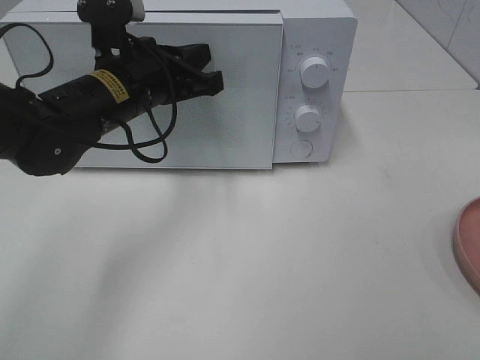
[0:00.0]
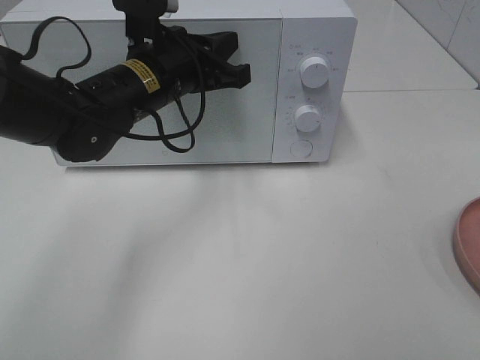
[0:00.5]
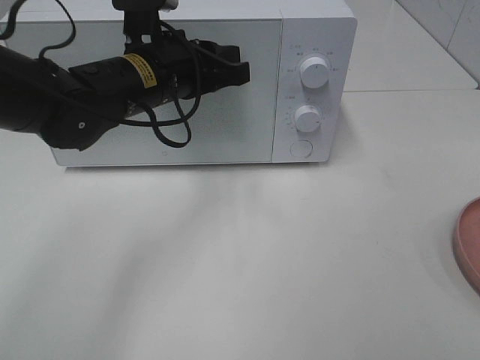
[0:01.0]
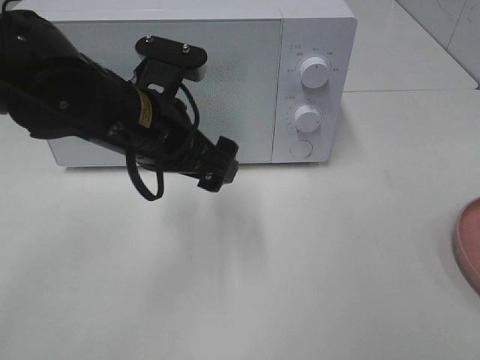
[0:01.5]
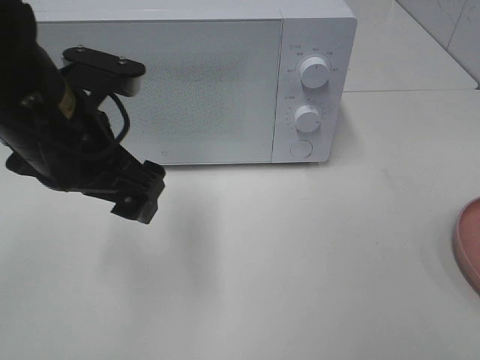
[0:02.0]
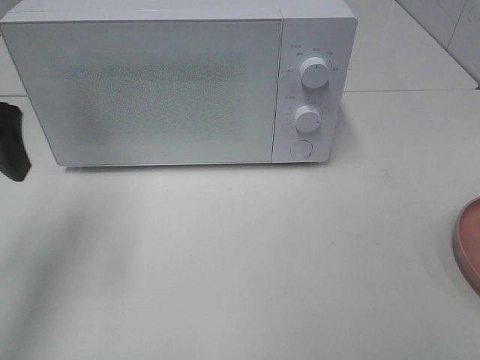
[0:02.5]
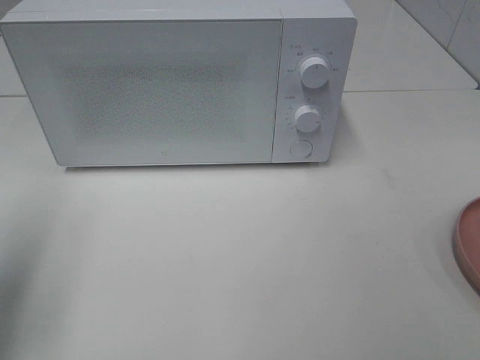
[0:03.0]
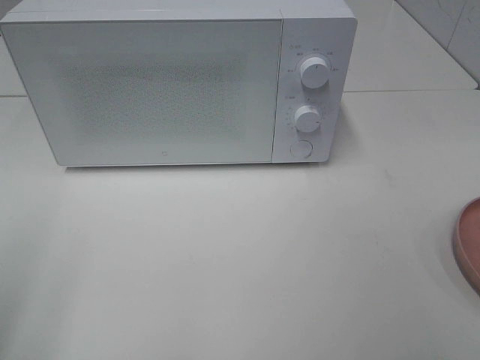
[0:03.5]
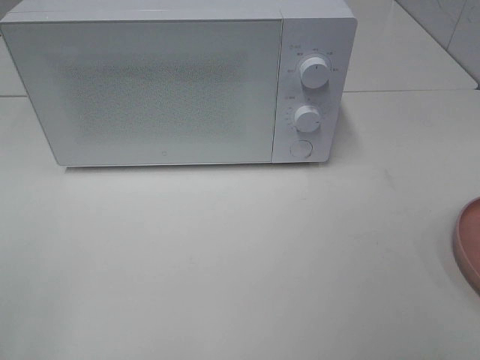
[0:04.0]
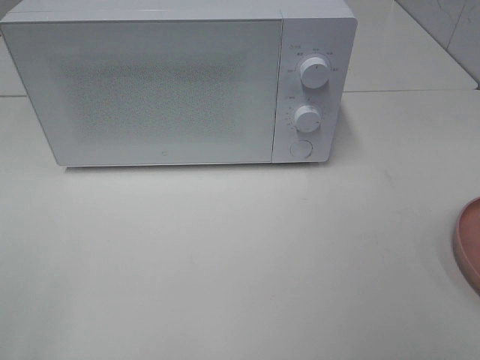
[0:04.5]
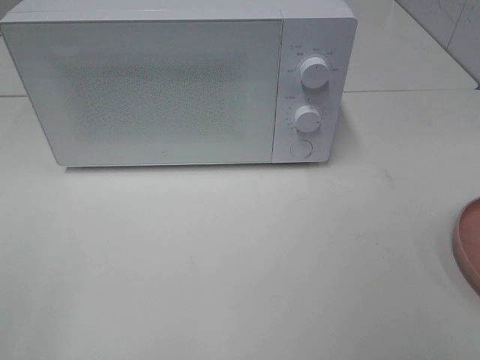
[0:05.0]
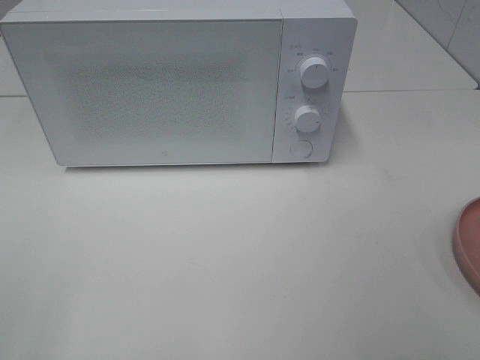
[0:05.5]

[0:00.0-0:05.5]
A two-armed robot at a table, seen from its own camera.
Task of the whole recording: Heat the burger.
0:00.0 to 0:02.0: The left gripper goes about 10 cm backward, and opens.
0:02.0 to 0:03.5: The left gripper shifts roughly 25 cm to the left and backward.

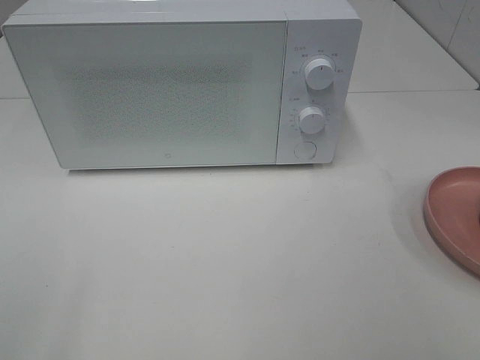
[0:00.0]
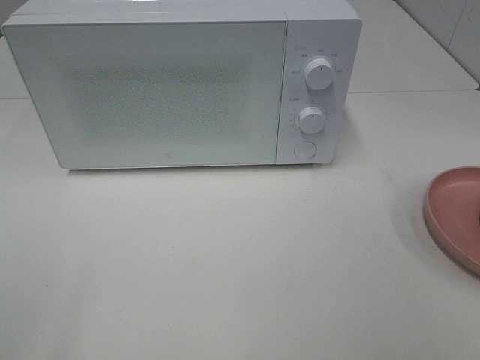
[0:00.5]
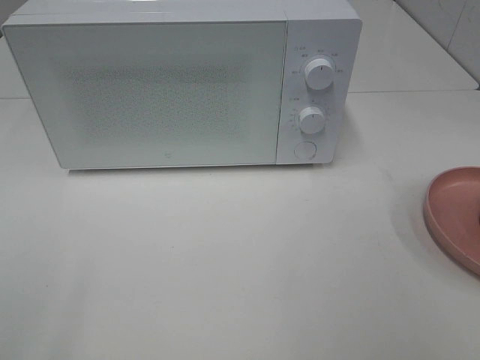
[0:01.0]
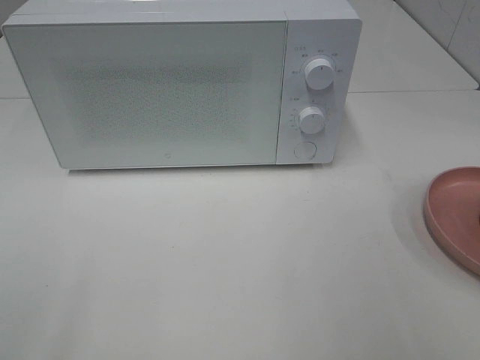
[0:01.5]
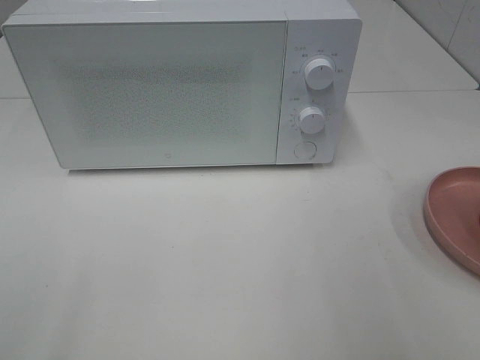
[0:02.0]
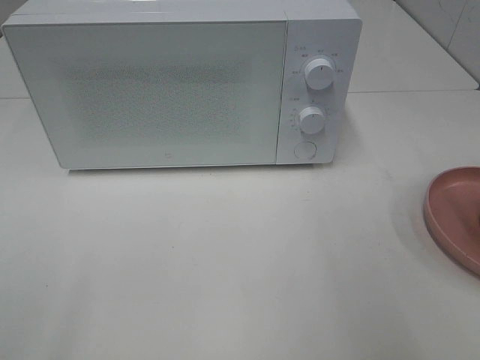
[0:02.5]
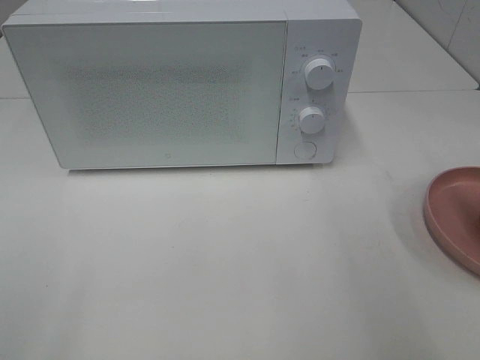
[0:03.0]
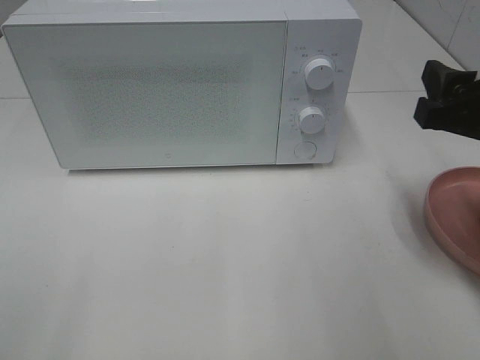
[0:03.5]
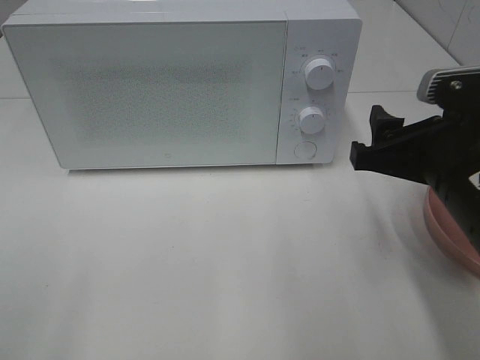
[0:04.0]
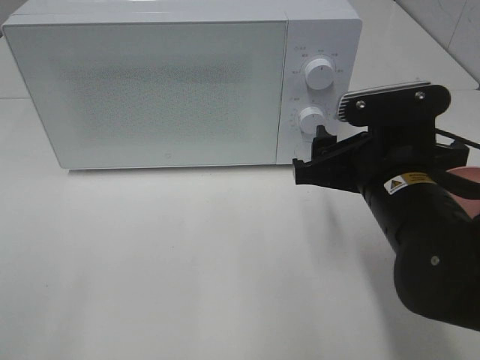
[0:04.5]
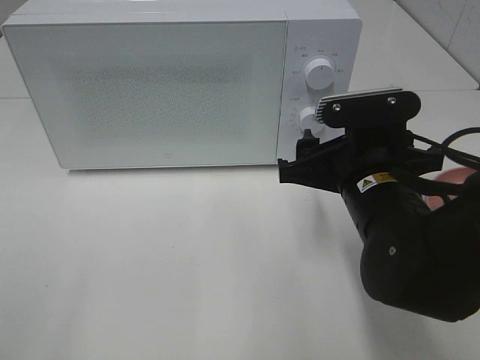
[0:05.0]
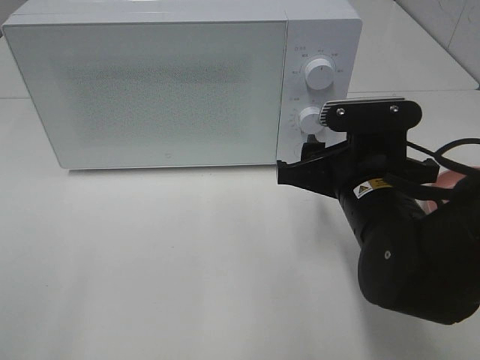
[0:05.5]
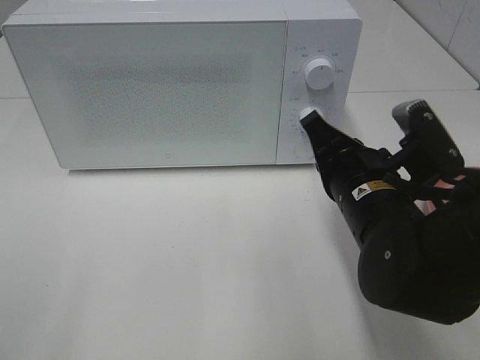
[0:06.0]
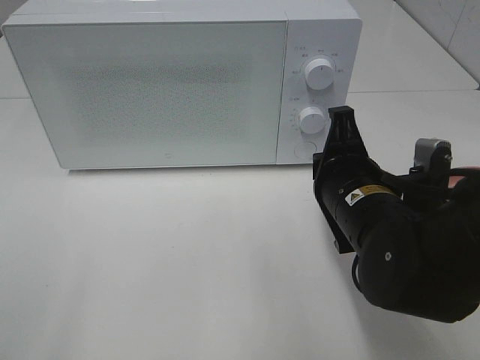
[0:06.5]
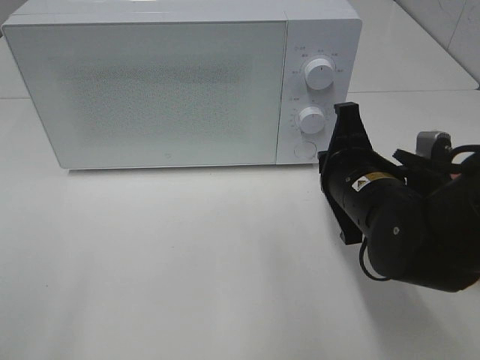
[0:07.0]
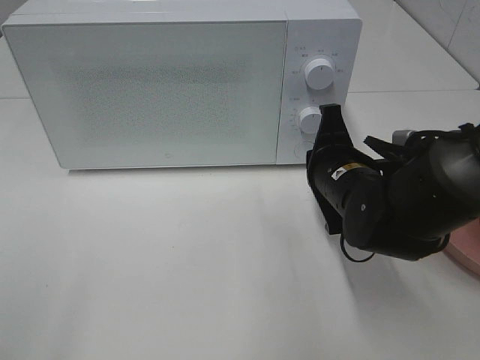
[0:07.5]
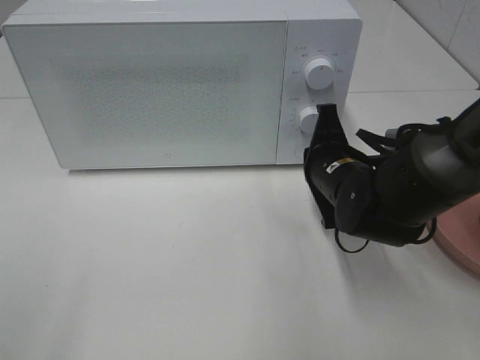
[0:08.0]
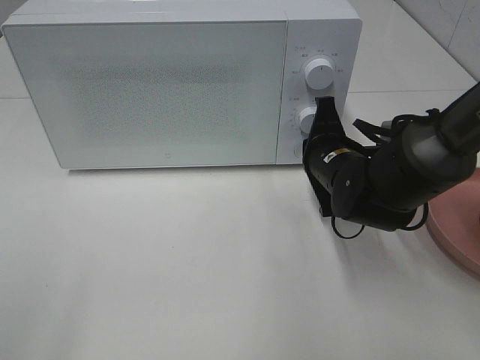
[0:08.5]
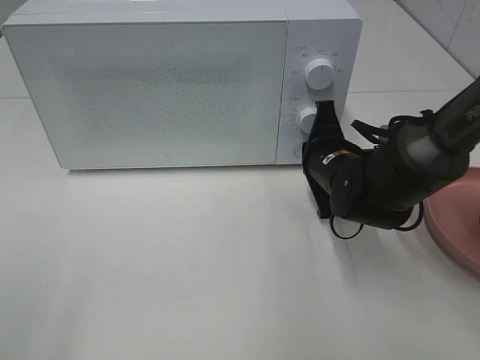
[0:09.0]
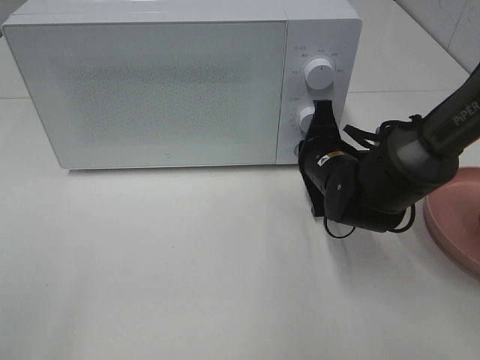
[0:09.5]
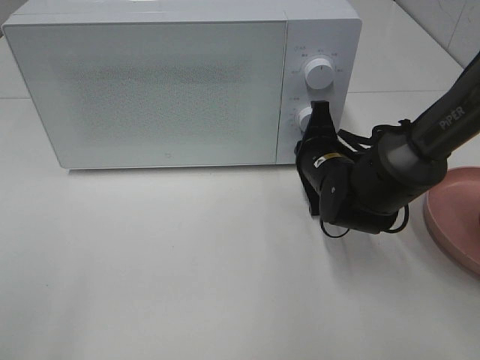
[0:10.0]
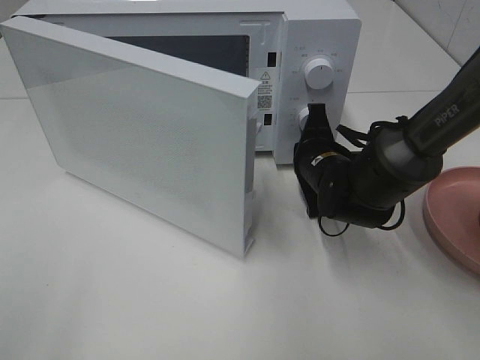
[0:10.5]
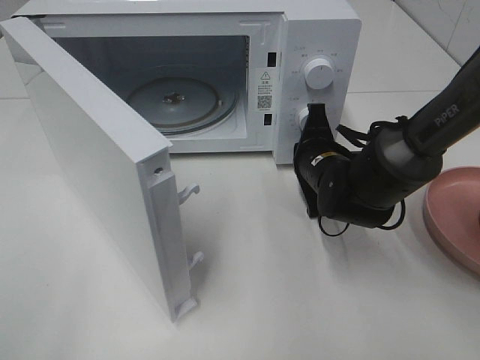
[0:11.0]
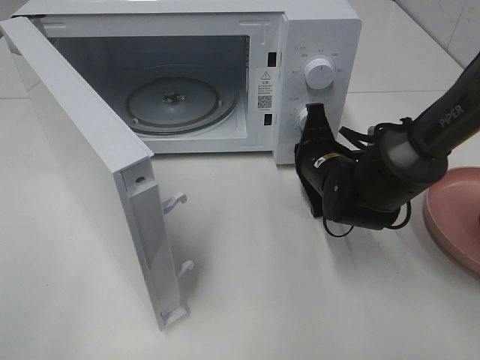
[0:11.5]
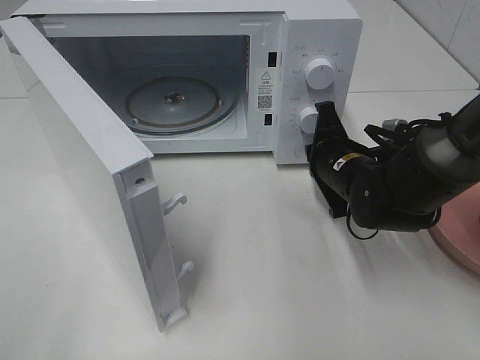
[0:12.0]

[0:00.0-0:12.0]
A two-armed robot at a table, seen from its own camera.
Task of the whole recording: Heat the burger.
0:02.0 to 0:04.0: The right gripper moves downward, to the left and forward, approximately 15 cm.
0:04.0 to 0:06.0: The right gripper goes some 10 cm to the left and downward, and closes.
0:06.0 to 0:08.0: The right gripper shifts about 10 cm forward.
0:08.0 to 0:10.0: The grippers stay close to where they were, moving slightly.

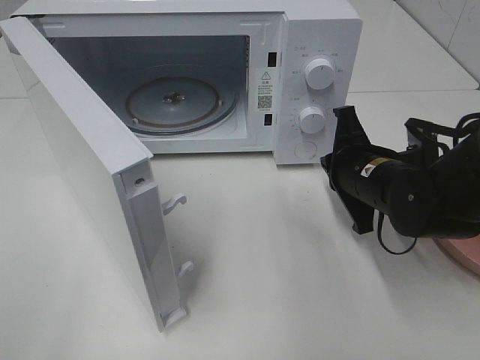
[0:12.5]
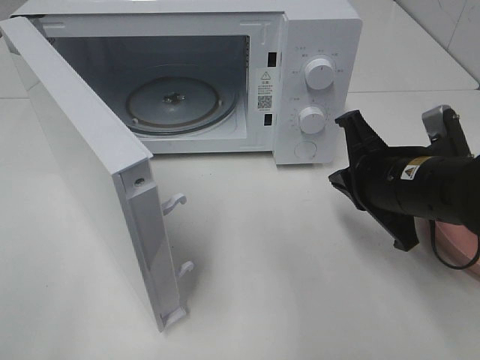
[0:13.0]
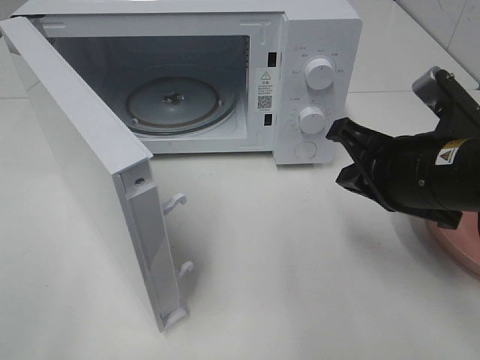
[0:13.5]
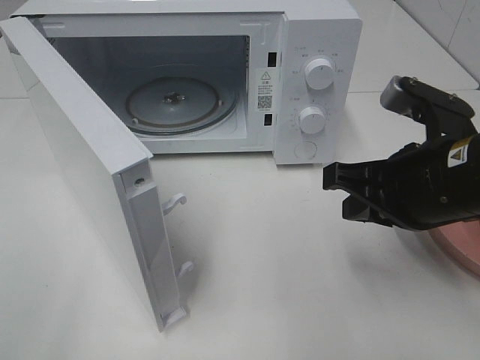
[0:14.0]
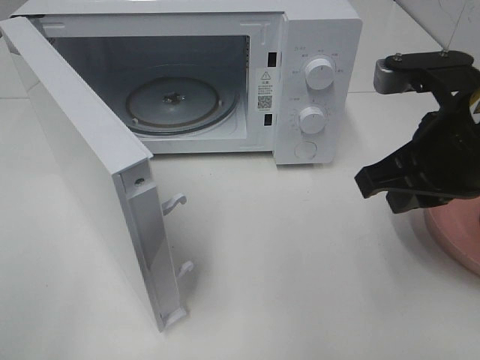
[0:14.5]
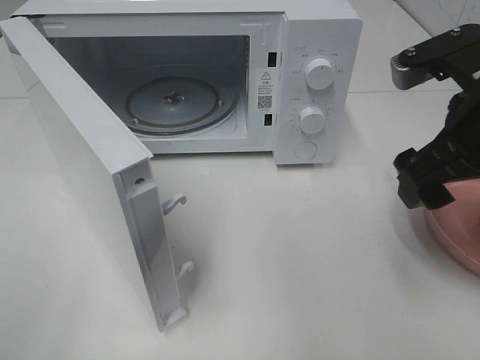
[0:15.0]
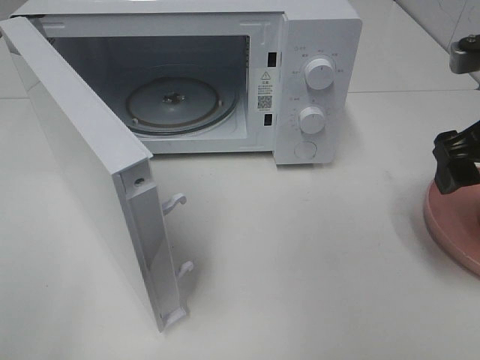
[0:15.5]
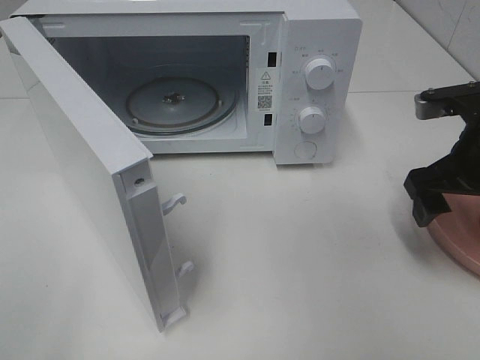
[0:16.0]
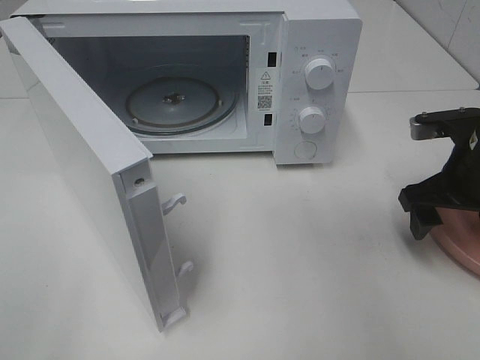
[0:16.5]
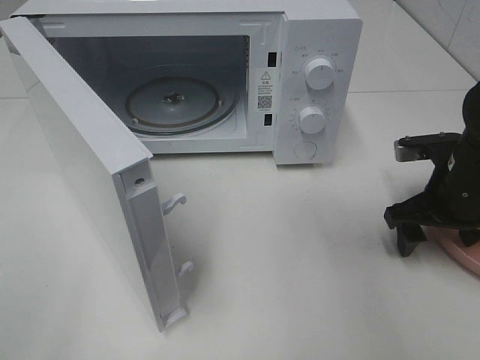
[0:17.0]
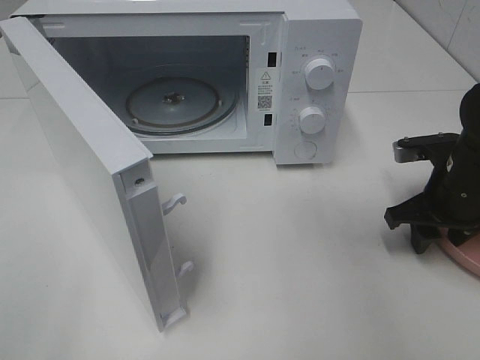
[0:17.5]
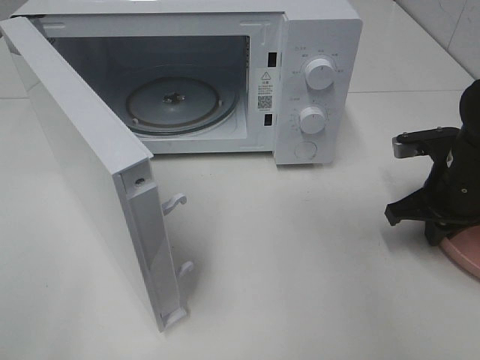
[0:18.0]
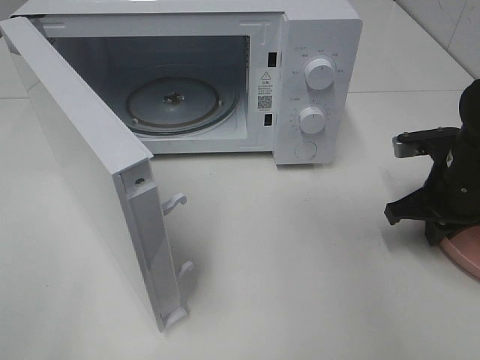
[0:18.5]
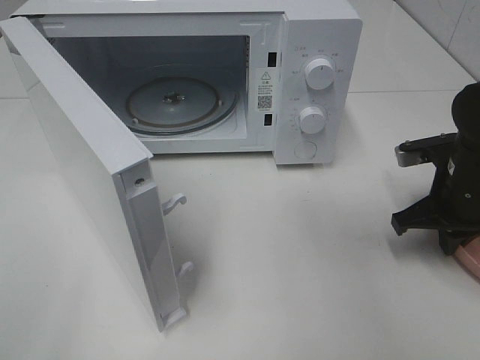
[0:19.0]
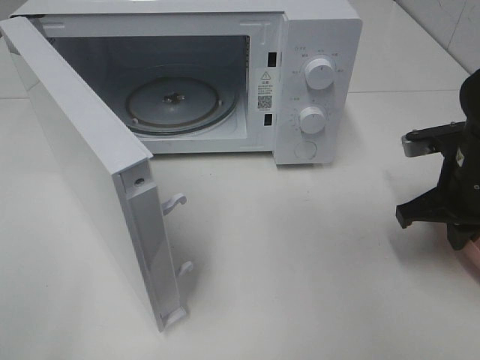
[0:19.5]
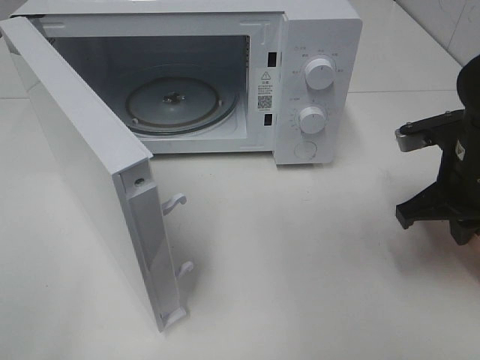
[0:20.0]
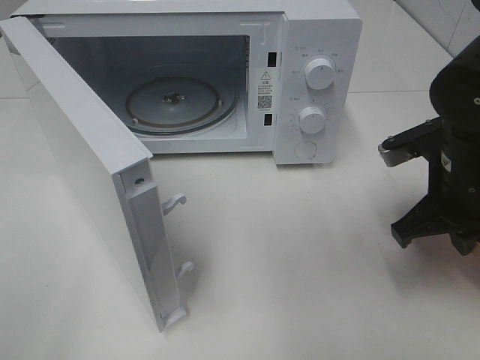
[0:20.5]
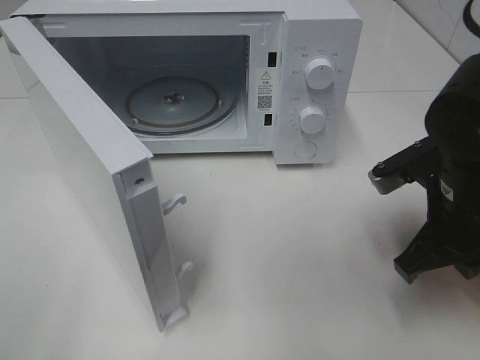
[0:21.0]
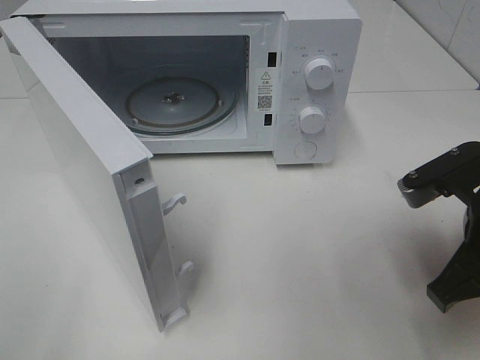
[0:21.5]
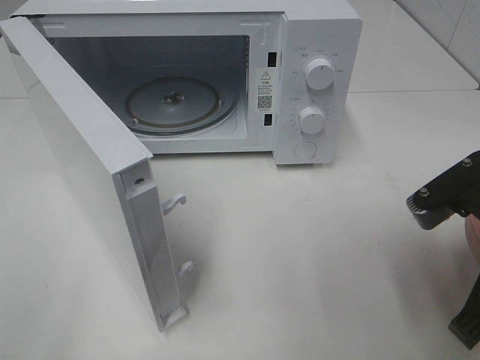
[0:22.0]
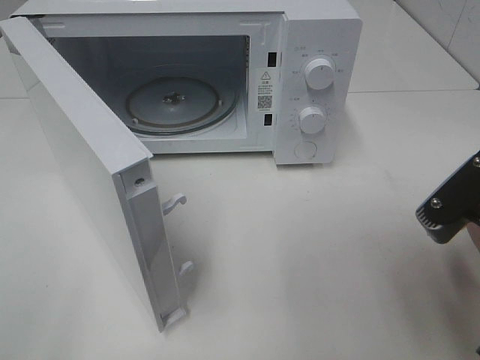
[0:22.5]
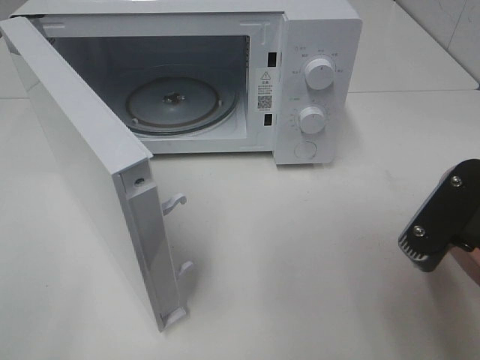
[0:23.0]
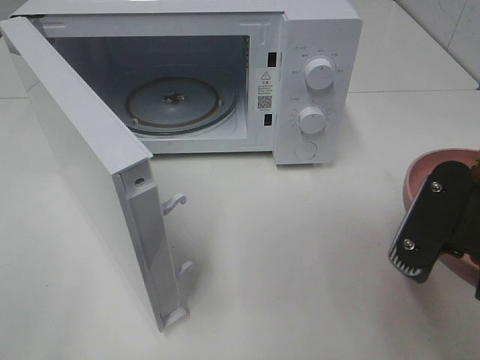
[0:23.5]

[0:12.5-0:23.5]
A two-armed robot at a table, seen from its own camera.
Task of the whole recording: Heat the burger.
Step, 0:12.5 to 0:18.5: Right hand: grab the plate with the hamburger.
0:12.5 to 0:14.5: The right gripper shifts roughly 15 cm upward and backward.
0:14.5 to 0:16.0: The right gripper travels to the right, forward and downward by about 10 cm, and opens its fingers.
0:16.0 to 0:18.0: The right gripper heads downward, covering roughly 10 cm, and closes up.
0:18.0 to 0:20.0: The right gripper shifts approximately 5 cm upward.
0:20.0 to 0:21.5: The right gripper goes some 10 cm backward.
0:21.5 to 0:23.5: The right gripper goes roughly 5 cm backward.
